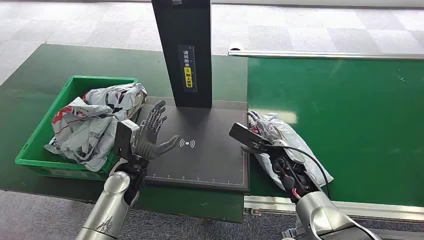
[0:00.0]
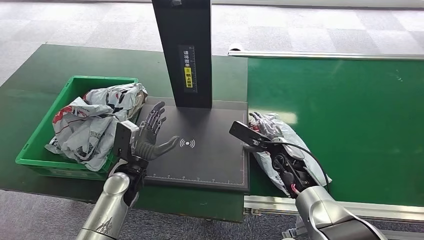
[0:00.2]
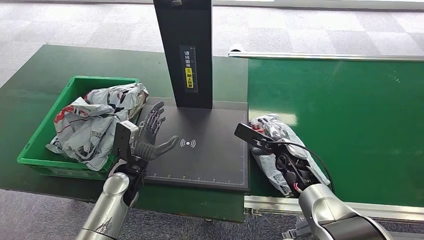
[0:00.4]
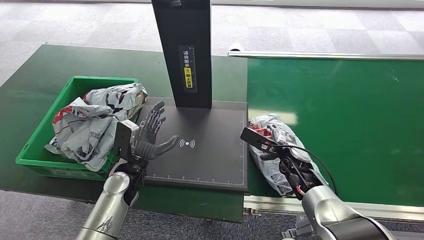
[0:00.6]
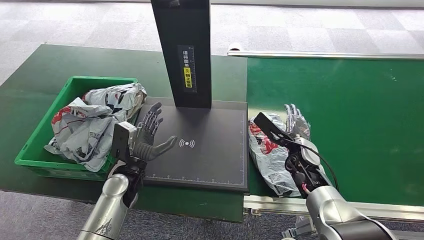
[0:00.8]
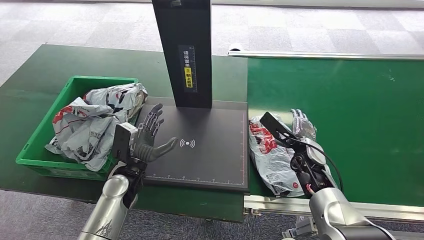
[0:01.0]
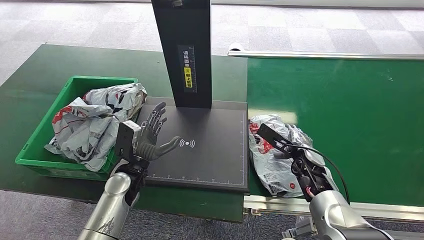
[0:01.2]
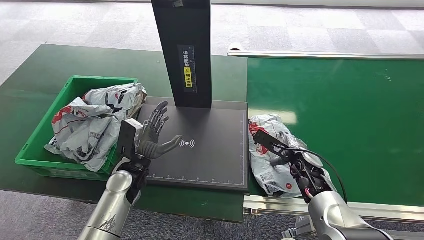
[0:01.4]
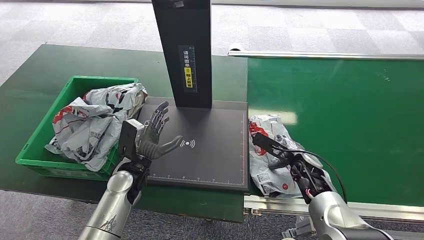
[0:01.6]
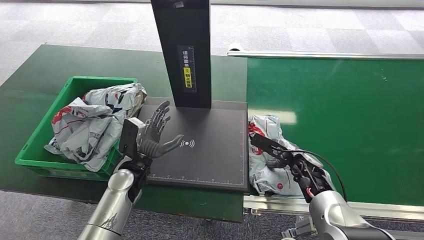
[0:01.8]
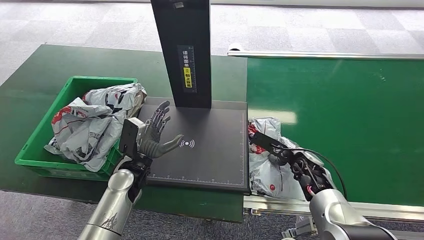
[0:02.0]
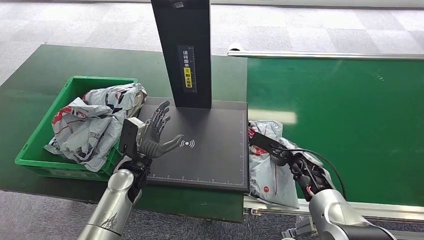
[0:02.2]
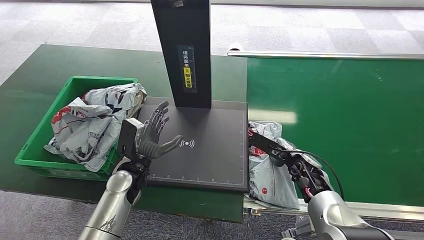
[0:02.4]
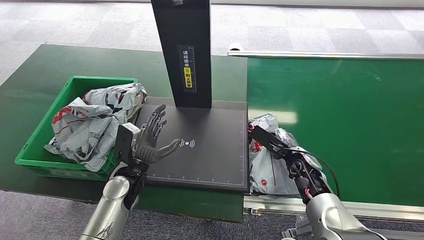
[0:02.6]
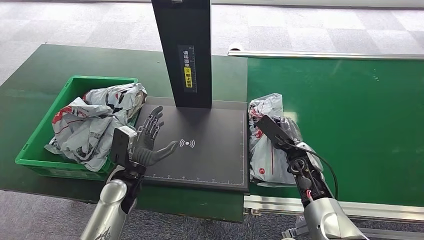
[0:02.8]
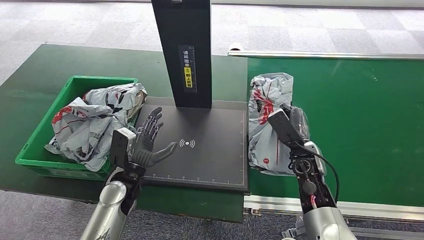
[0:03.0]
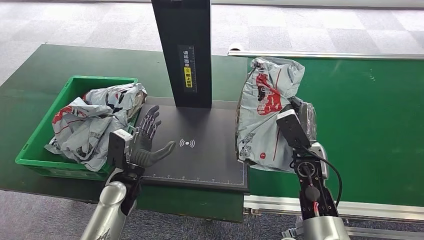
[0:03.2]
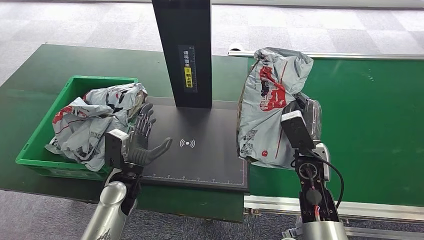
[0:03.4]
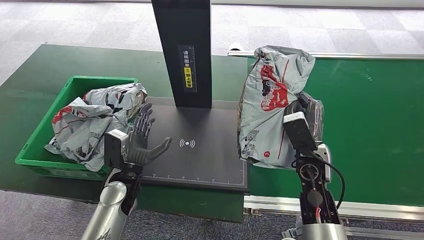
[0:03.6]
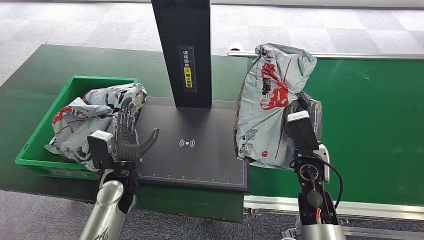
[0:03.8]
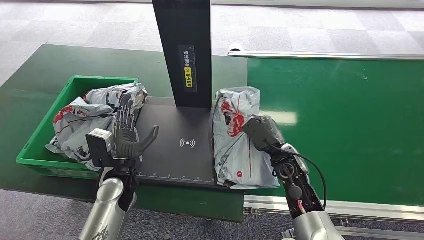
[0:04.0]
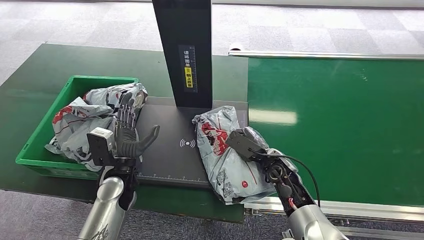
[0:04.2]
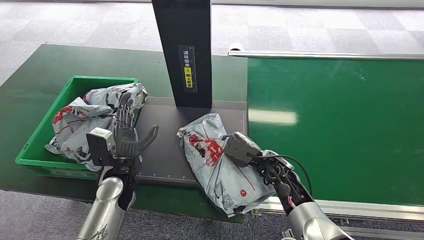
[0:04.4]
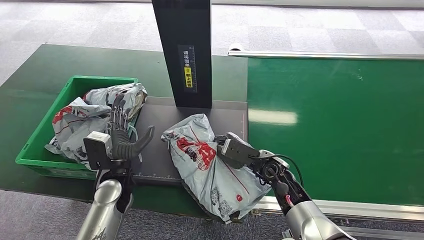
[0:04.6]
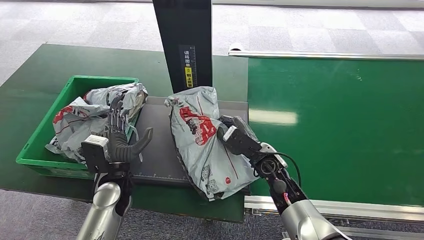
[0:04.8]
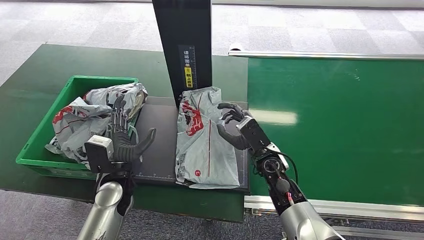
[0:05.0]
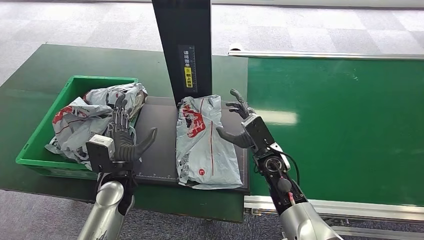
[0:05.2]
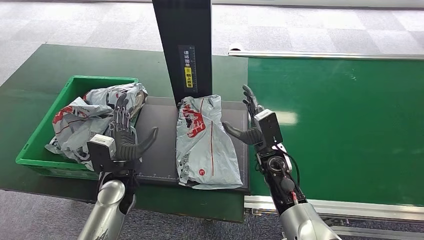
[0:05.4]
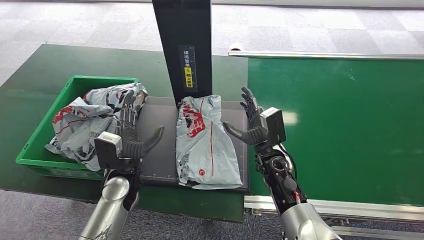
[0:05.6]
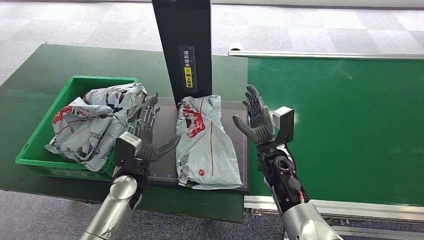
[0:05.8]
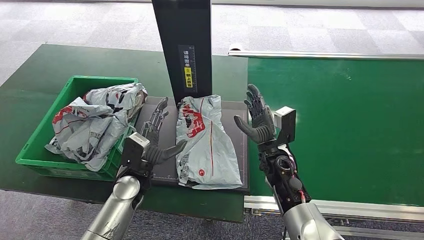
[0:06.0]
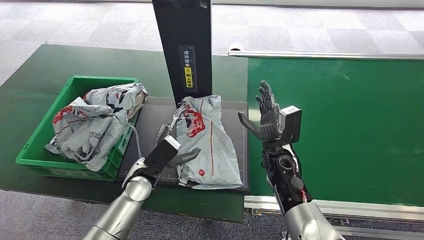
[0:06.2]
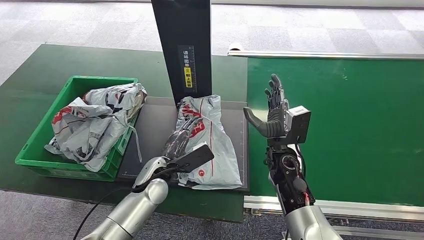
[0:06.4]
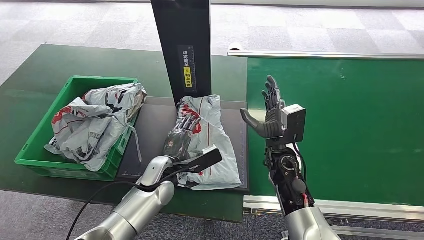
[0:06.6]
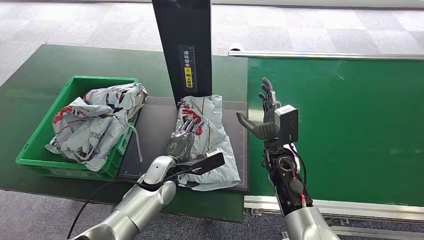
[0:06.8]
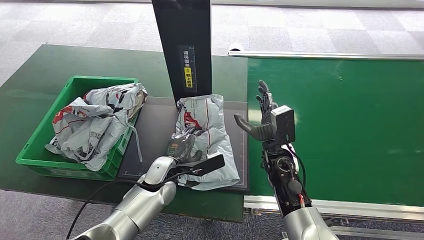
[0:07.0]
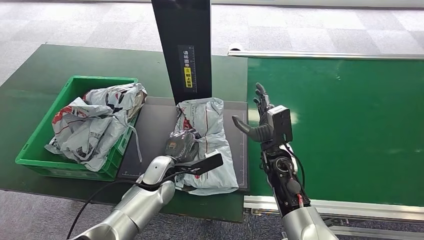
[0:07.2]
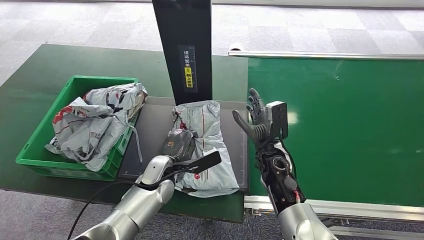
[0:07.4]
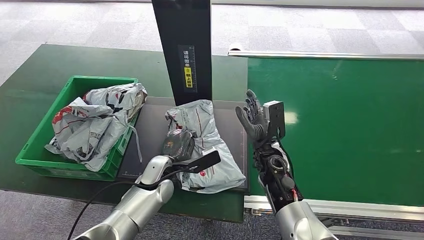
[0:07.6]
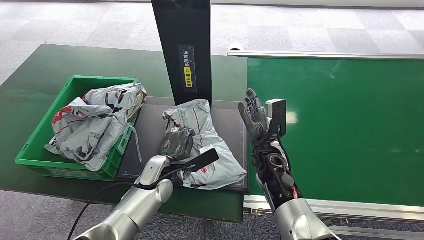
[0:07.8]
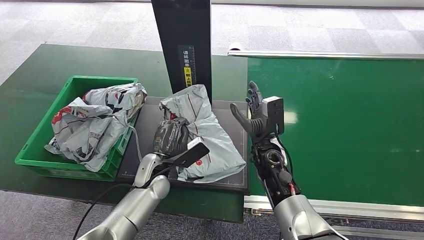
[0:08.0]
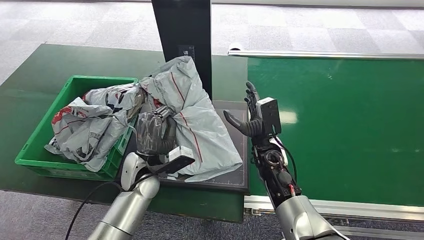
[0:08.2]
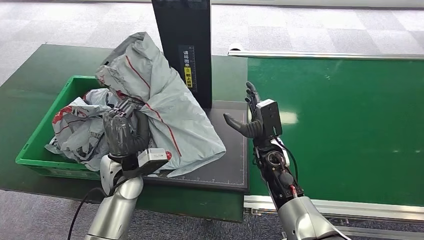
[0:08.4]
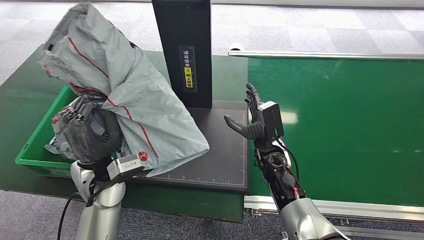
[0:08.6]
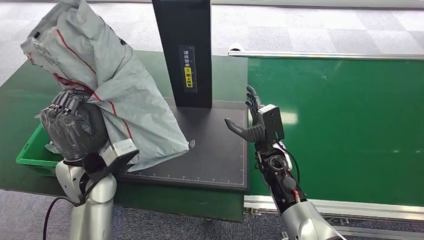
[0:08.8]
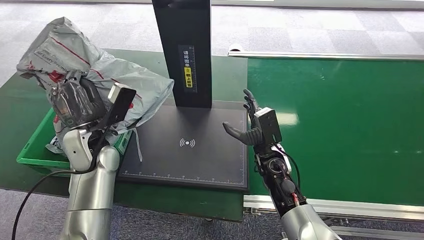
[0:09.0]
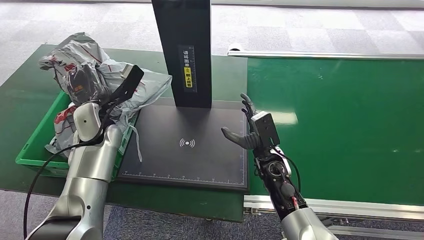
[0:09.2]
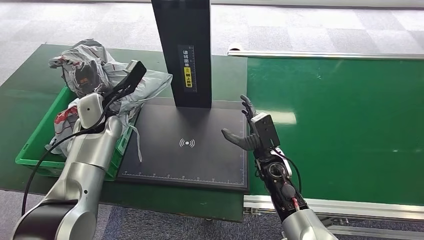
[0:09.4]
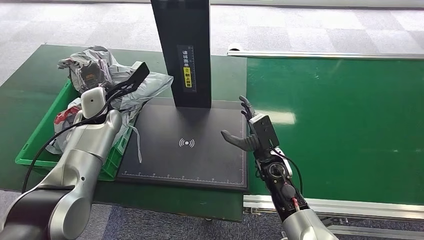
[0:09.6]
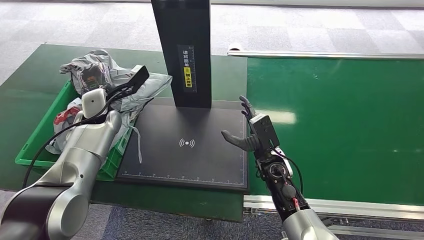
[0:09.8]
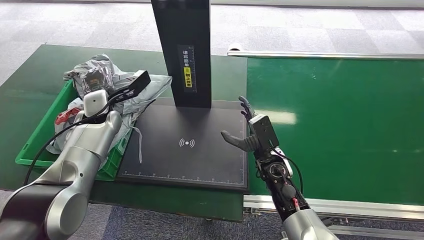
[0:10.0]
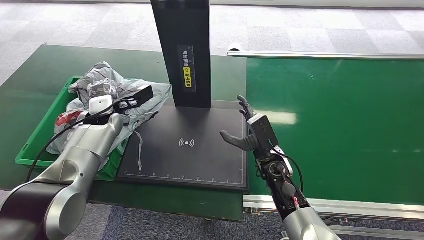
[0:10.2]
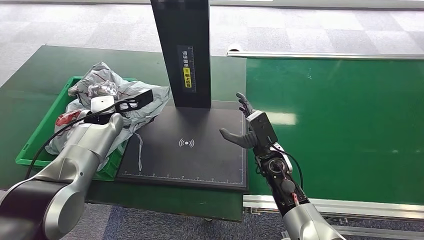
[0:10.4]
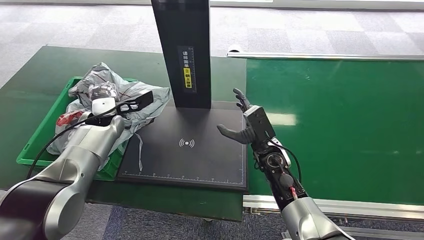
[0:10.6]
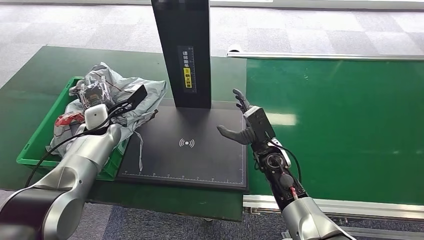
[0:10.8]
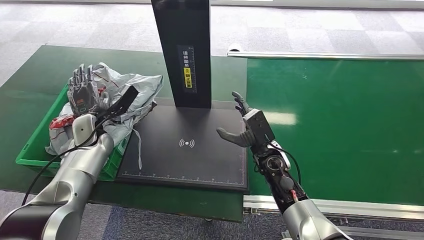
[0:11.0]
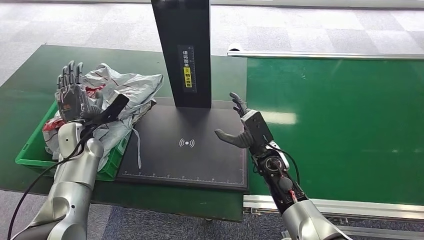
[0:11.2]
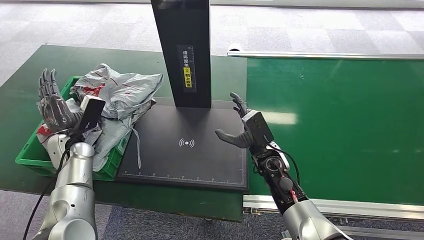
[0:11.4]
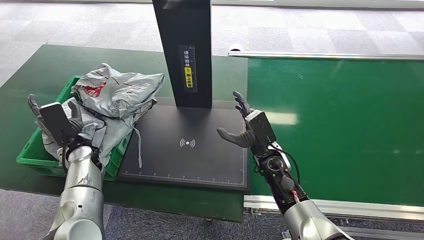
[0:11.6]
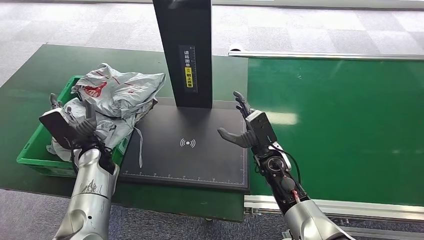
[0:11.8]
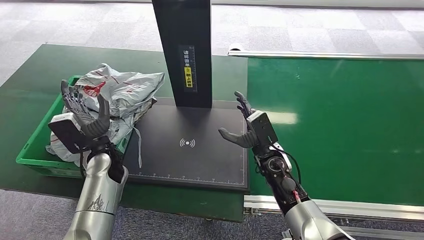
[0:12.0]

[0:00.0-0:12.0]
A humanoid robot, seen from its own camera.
Step, 0:00.0 to 0:03.8: Pick up the package from the conveyor belt.
Step, 0:04.0 to 0:06.2: Place the package onto the inbound machine.
Step, 0:06.4 to 0:08.8: Pick up the package from the inbound machine.
Step, 0:09.0 to 0:12.0: Place the package into the parcel locker.
0:01.6 to 0:03.0: The right hand moves roughly 5 cm.
0:03.0 to 0:04.4: The right hand is displaced to the left by about 5 cm.
0:06.0 to 0:07.6: The left hand changes place by some 5 cm.
0:09.0 to 0:10.4: The left hand heads forward and to the left, covering approximately 10 cm.
0:10.4 to 0:12.0: The left hand is displaced backward and downward by roughly 10 cm.

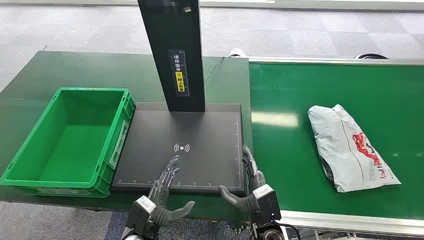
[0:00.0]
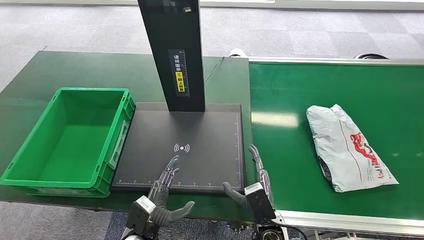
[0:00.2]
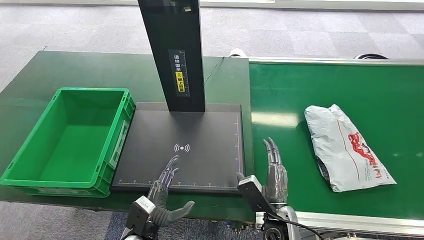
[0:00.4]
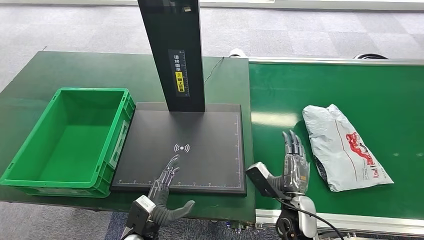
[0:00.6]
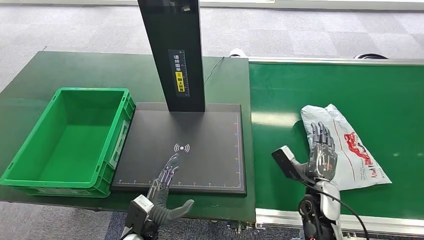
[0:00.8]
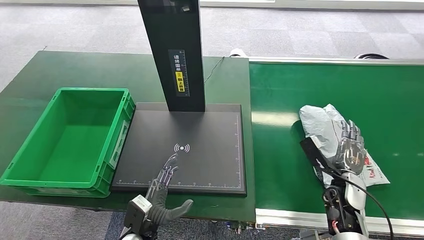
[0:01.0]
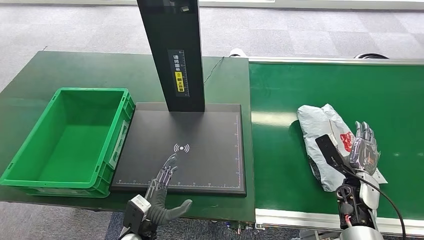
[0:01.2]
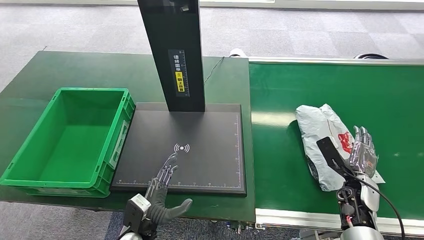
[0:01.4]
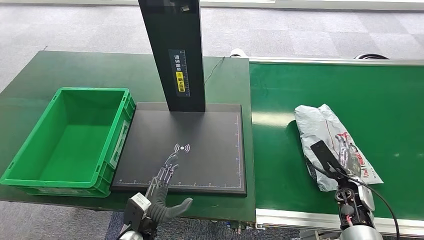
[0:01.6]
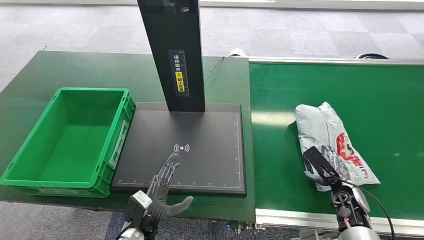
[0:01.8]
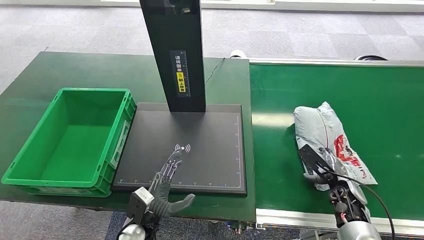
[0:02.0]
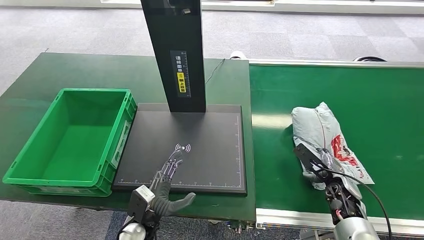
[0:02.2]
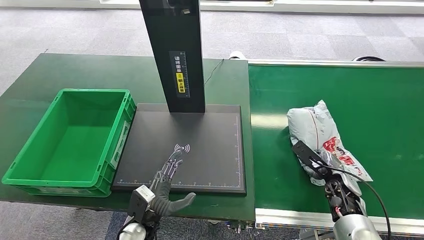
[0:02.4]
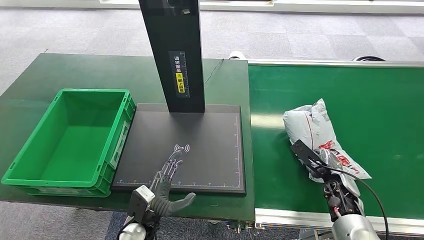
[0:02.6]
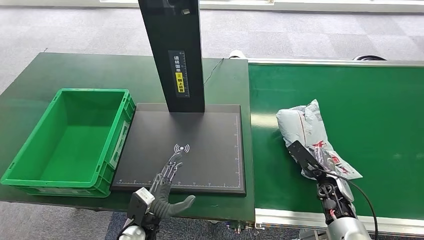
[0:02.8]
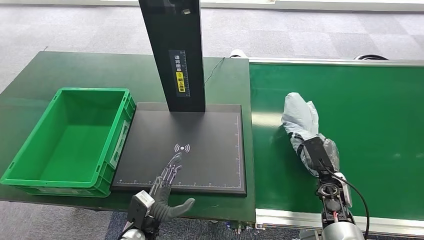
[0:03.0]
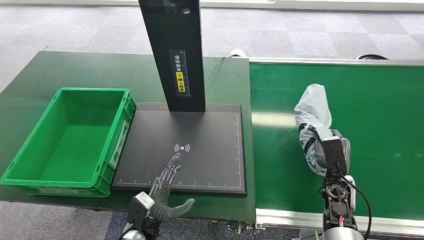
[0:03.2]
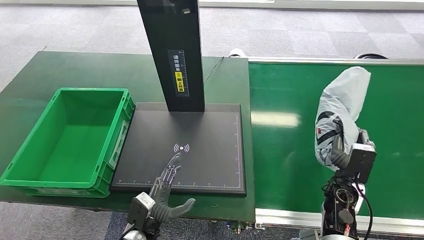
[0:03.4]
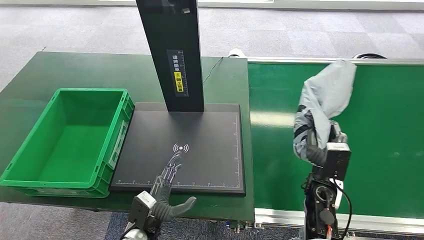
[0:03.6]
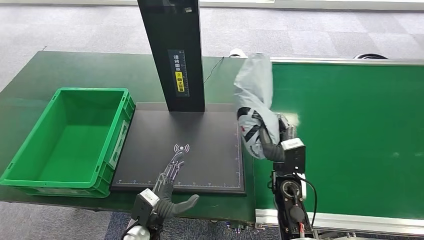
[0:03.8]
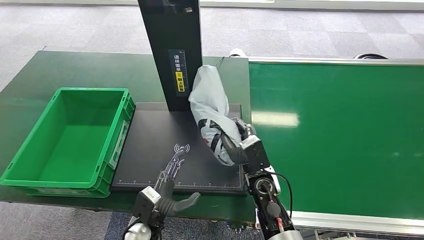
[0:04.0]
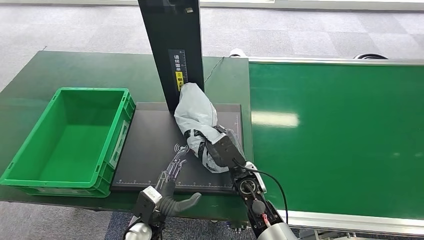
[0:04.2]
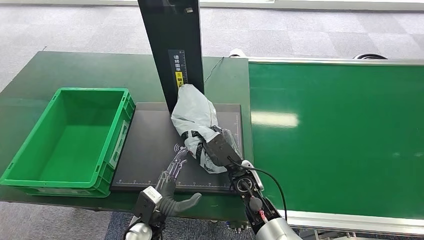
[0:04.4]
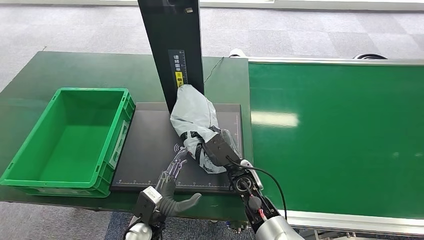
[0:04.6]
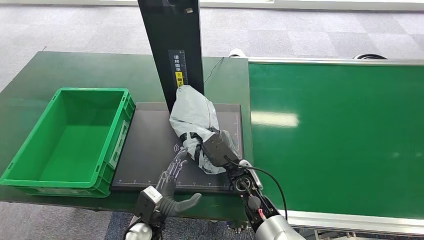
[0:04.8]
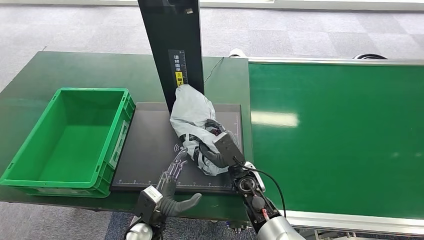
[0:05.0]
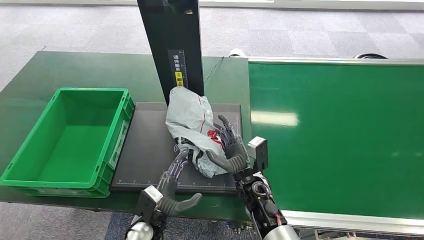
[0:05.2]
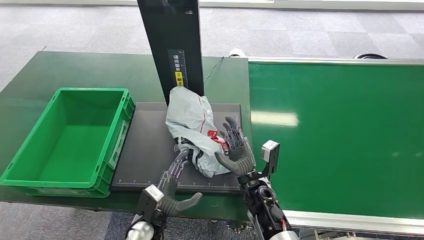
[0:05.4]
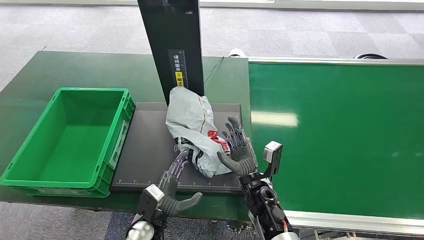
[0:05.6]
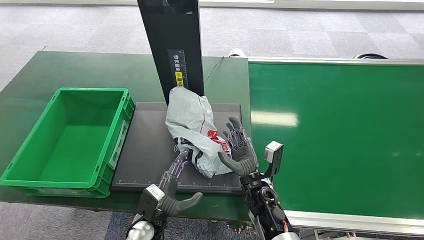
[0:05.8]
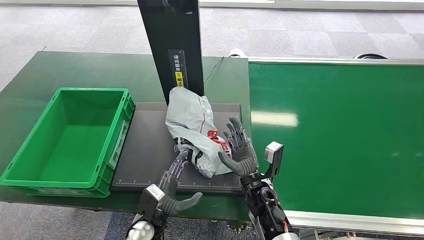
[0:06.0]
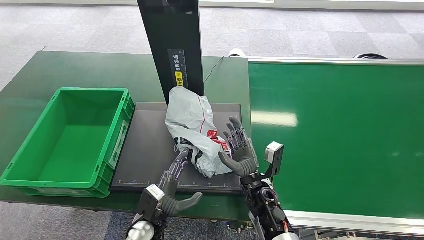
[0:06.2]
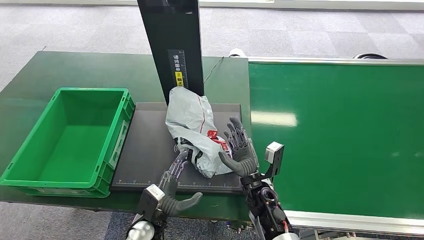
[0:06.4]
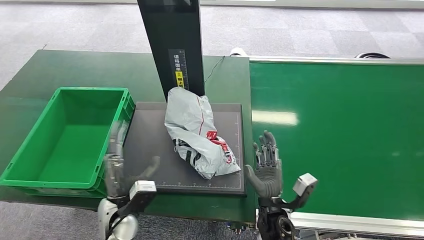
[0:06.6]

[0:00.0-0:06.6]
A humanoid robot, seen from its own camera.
Step, 0:00.0 to 0:03.4: Pick up the package from the conveyor belt.
Step, 0:03.8 to 0:06.2: Place the package onto the inbound machine.
0:01.6 to 0:03.2: The right hand travels to the left by some 5 cm.
0:03.2 to 0:05.0: The right hand heads to the left, covering some 25 cm.
0:05.0 to 0:06.6: The left hand goes about 5 cm upward, while the right hand shifts about 10 cm backward.
